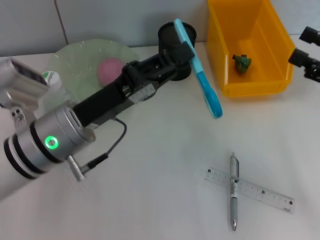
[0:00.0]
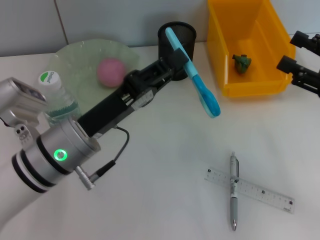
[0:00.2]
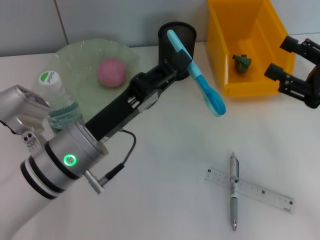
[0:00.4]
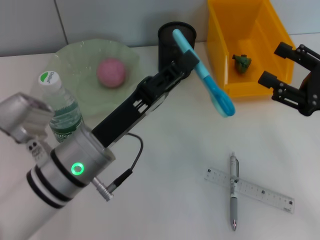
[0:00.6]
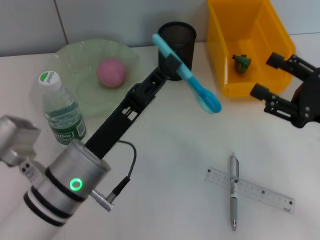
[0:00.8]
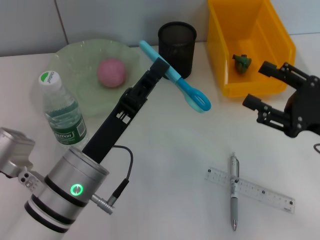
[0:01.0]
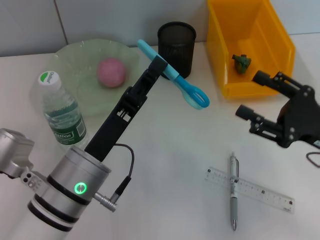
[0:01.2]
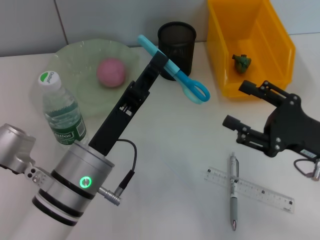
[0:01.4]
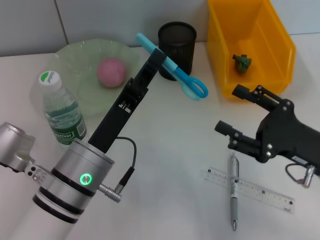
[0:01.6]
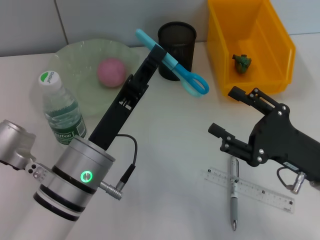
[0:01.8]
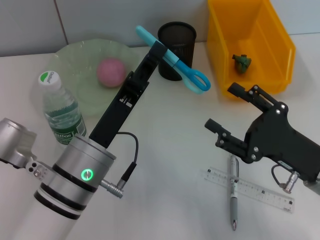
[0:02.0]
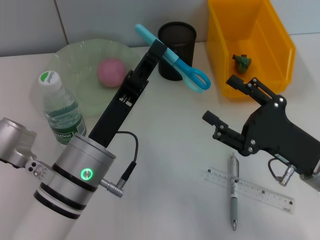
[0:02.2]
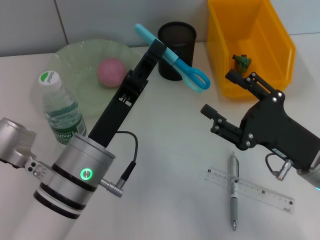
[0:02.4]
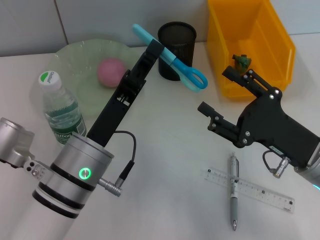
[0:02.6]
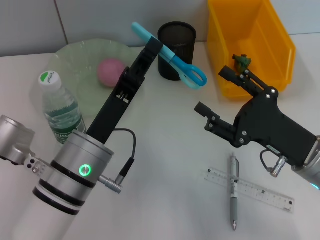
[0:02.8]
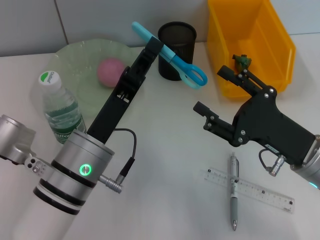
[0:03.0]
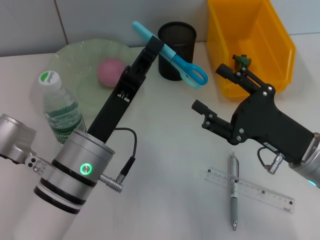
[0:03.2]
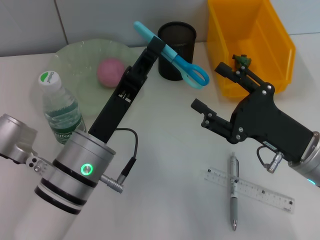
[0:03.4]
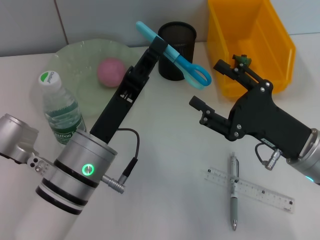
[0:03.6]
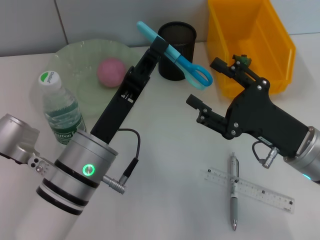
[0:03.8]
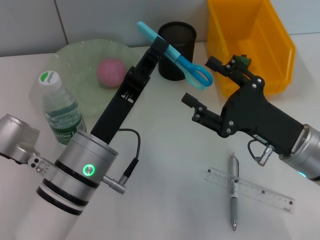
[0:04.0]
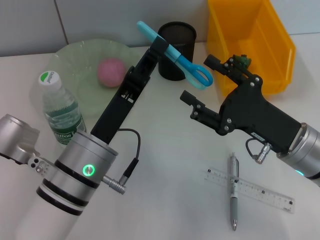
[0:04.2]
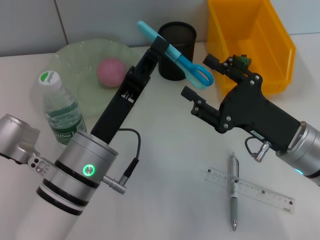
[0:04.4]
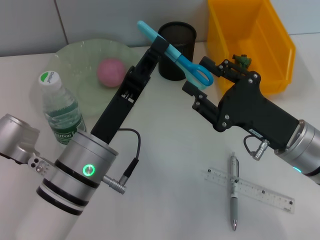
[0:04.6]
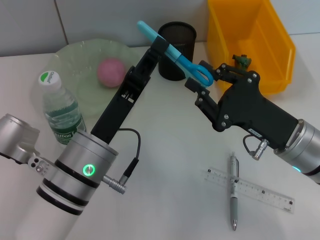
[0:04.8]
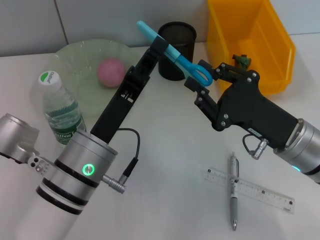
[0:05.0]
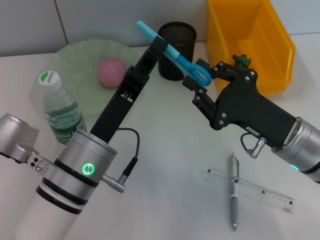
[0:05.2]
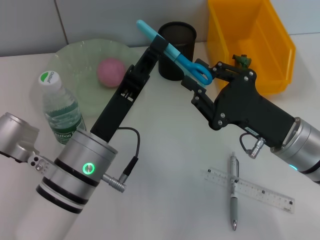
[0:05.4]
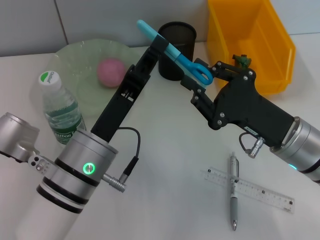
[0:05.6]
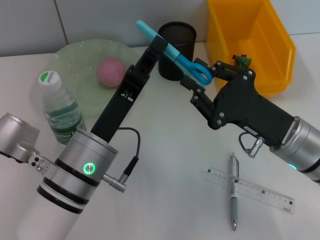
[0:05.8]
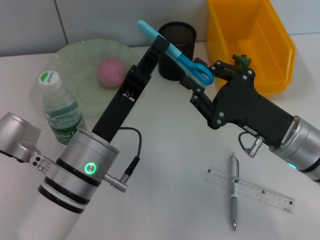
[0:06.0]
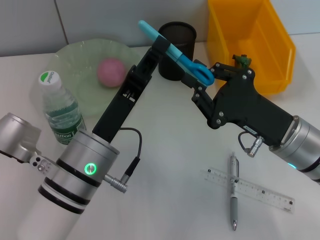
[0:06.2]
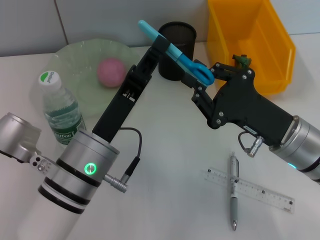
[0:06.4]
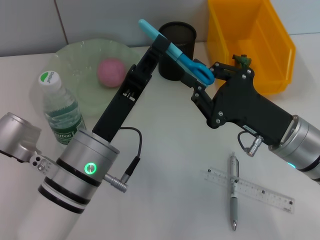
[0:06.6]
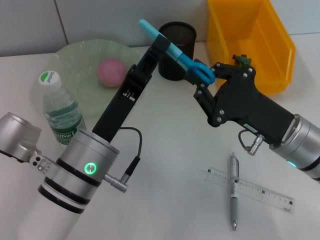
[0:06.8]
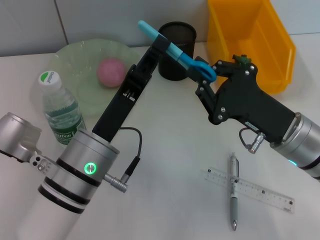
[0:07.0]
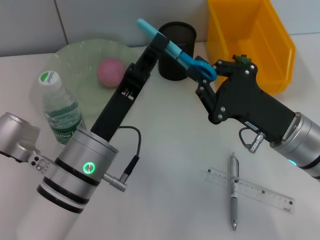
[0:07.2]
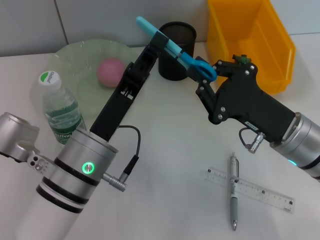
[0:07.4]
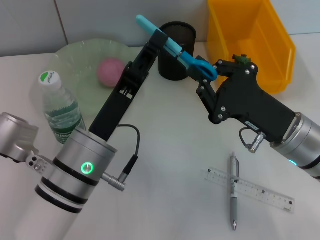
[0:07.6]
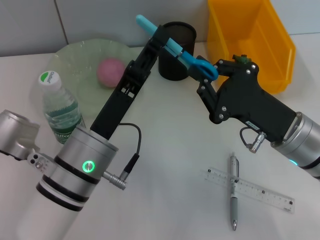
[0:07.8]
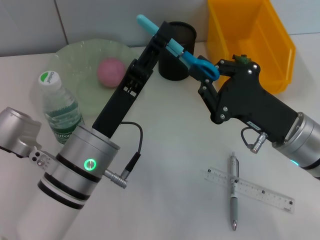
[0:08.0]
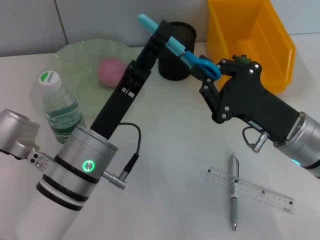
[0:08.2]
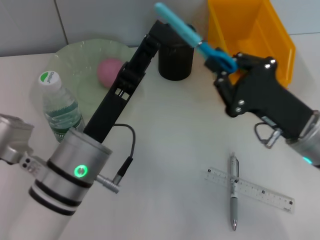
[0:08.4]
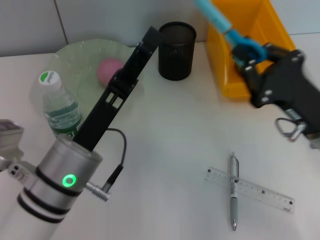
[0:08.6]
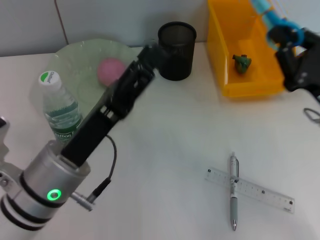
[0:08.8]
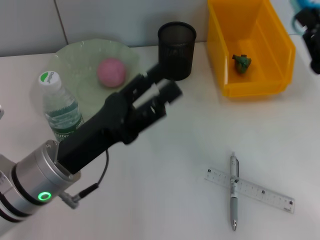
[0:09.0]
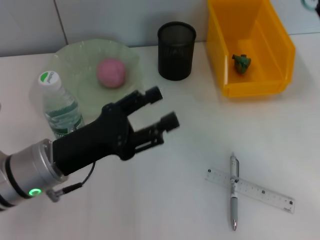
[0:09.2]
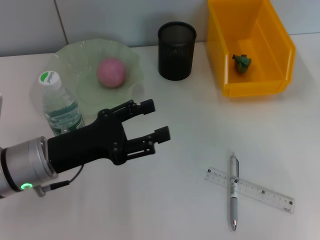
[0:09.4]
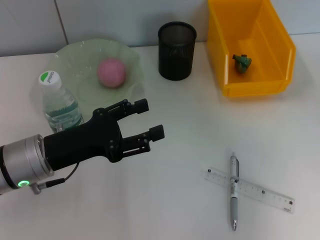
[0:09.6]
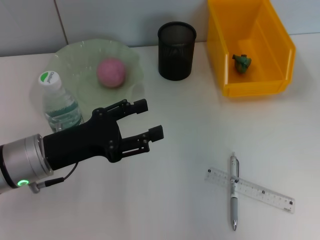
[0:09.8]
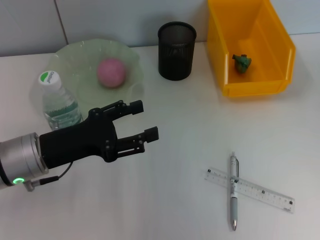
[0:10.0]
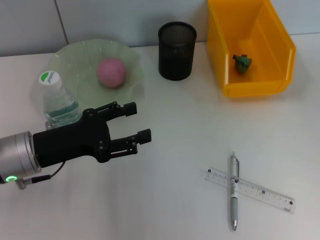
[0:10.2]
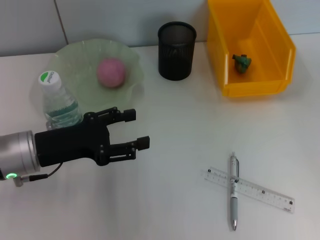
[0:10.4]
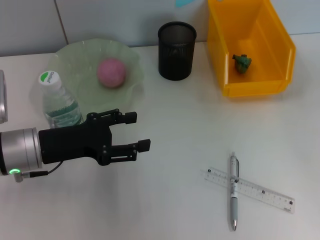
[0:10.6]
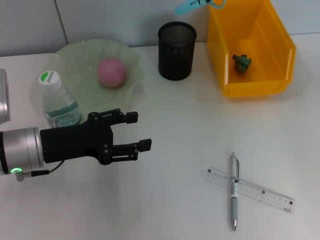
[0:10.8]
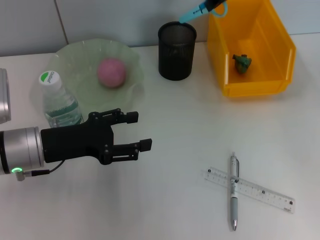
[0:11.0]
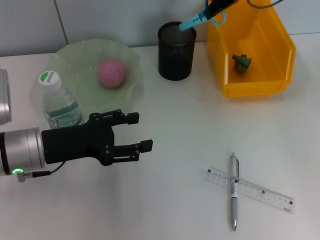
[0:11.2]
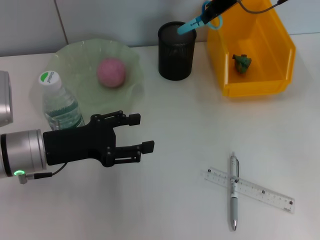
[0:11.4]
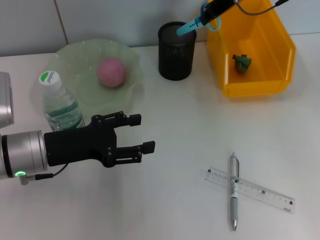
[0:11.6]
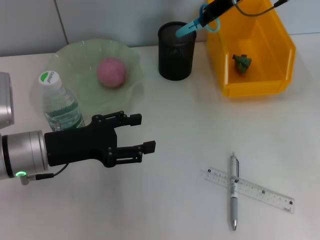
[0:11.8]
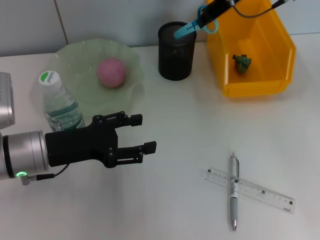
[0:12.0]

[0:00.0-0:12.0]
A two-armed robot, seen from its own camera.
Step, 0:00.0 to 0:08.2: Pass the blue scissors from the left hand to the right hand.
0:00.0 to 0:01.6: The right gripper moves to the left and downward, roughly 10 cm; the left gripper heads backward, covering about 5 cm.
0:01.6 to 0:04.4: The grippers stay close to where they were, moving slightly.
0:04.4 to 0:06.0: The right gripper closes its fingers.
0:06.0 to 0:07.6: Neither gripper changes place.
0:07.6 to 0:09.0: The left gripper heads to the left, covering some 5 cm, and opens up, while the right gripper heads to the right, covering some 10 cm.
0:09.0 to 0:10.4: The left gripper is displaced to the left and forward by approximately 10 cm, while the right gripper travels forward, upward and to the left by approximately 30 cm.
0:10.4 to 0:12.0: The right gripper is displaced downward by roughly 5 cm.

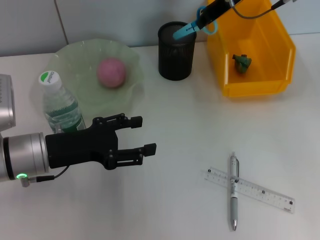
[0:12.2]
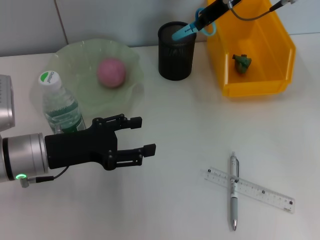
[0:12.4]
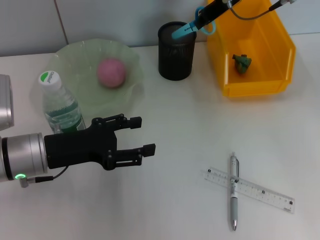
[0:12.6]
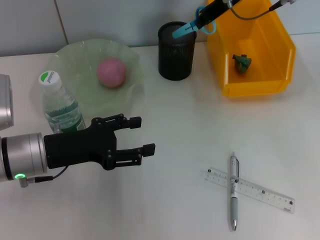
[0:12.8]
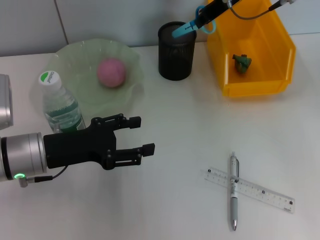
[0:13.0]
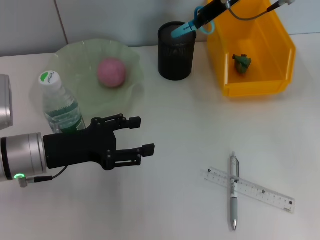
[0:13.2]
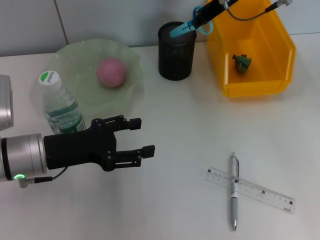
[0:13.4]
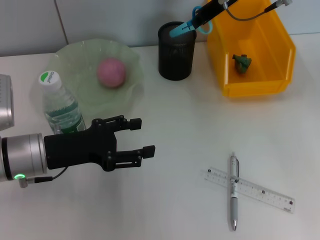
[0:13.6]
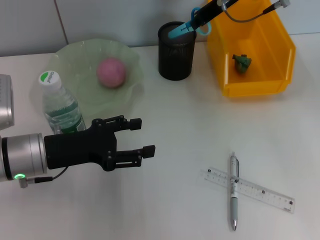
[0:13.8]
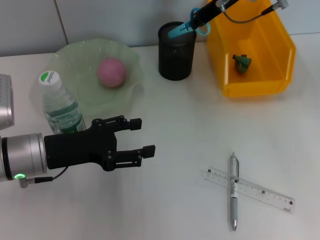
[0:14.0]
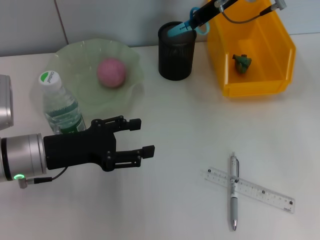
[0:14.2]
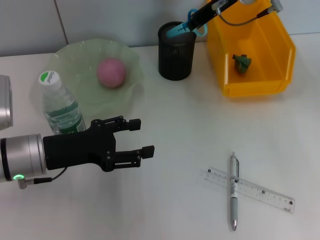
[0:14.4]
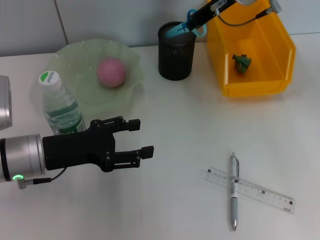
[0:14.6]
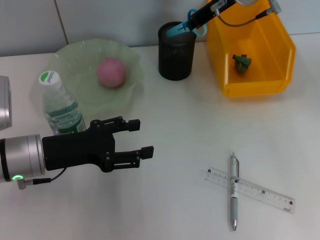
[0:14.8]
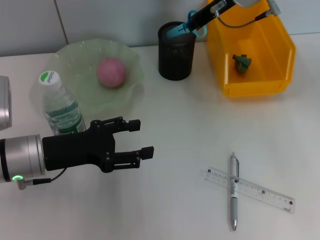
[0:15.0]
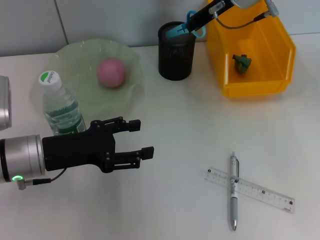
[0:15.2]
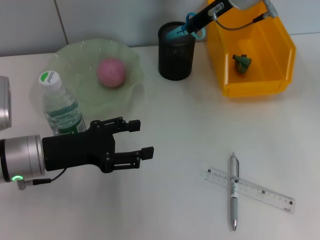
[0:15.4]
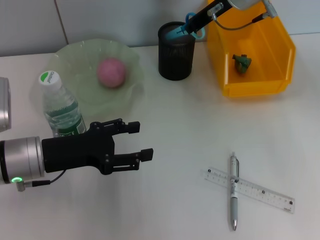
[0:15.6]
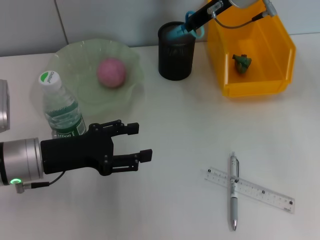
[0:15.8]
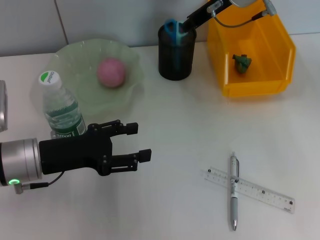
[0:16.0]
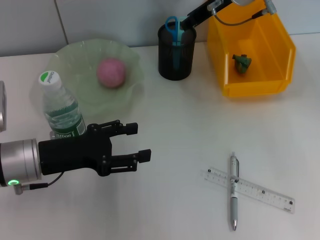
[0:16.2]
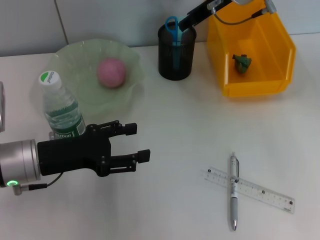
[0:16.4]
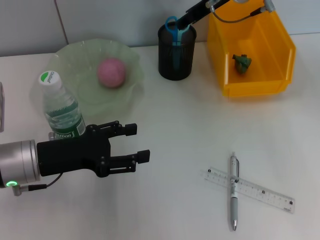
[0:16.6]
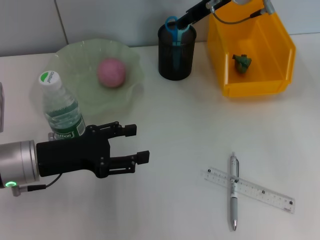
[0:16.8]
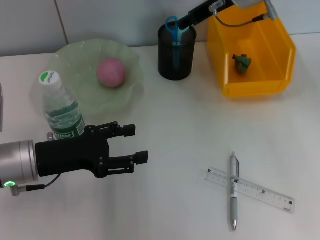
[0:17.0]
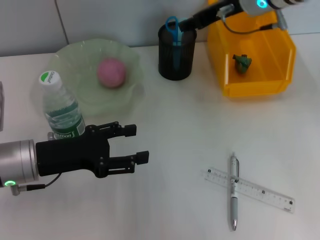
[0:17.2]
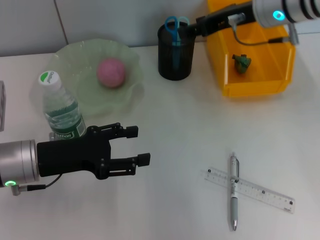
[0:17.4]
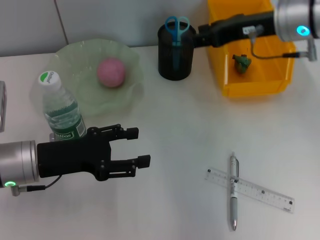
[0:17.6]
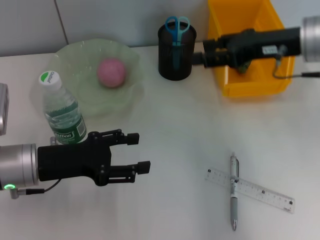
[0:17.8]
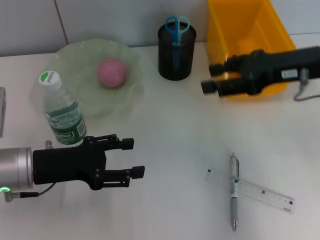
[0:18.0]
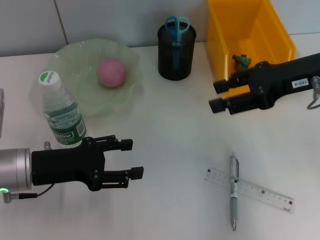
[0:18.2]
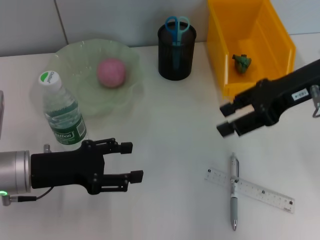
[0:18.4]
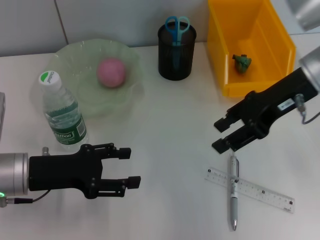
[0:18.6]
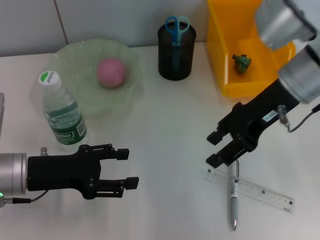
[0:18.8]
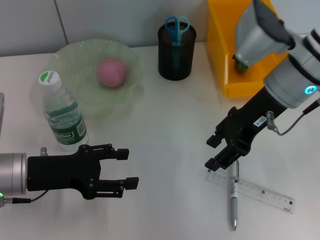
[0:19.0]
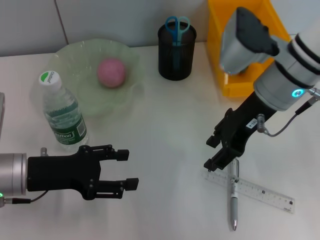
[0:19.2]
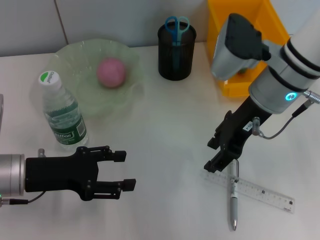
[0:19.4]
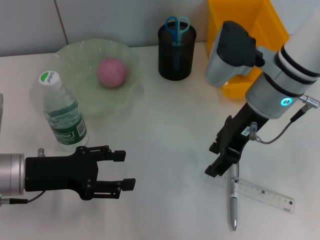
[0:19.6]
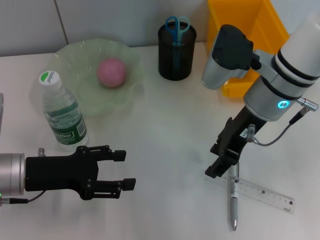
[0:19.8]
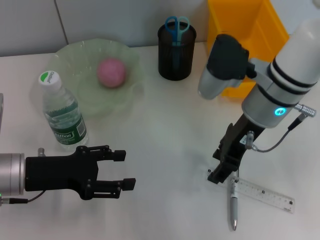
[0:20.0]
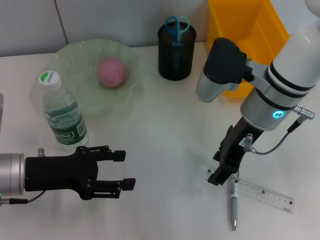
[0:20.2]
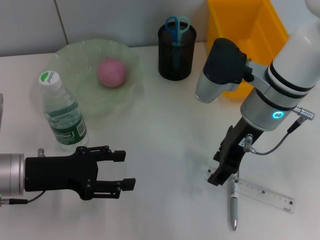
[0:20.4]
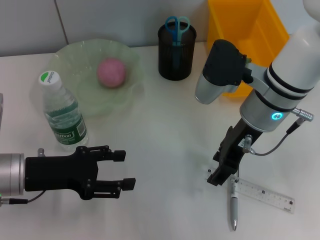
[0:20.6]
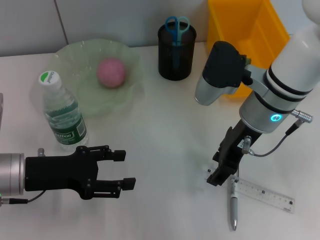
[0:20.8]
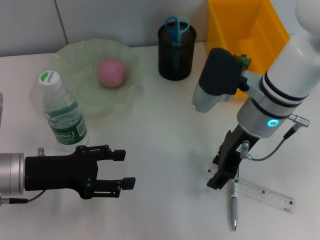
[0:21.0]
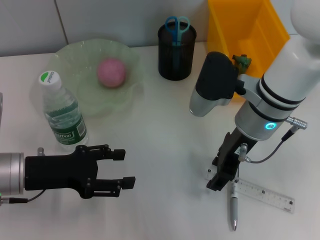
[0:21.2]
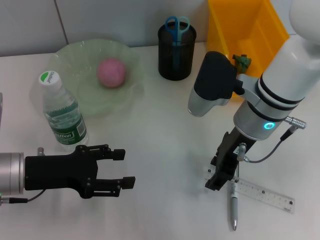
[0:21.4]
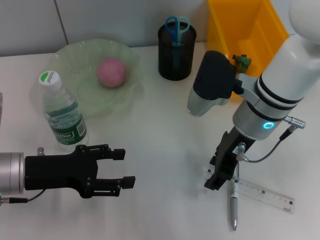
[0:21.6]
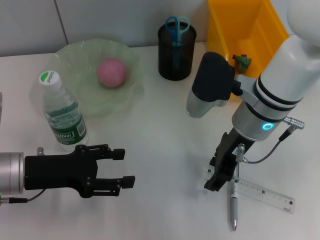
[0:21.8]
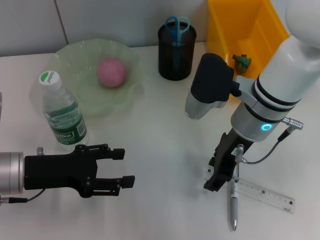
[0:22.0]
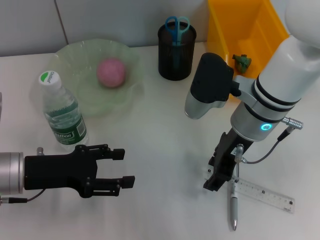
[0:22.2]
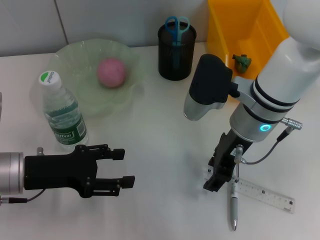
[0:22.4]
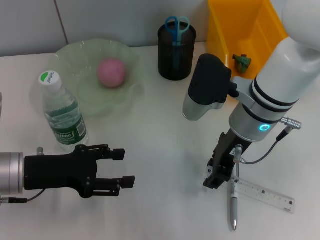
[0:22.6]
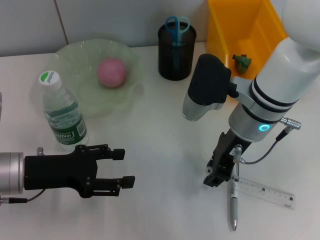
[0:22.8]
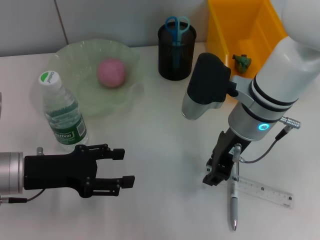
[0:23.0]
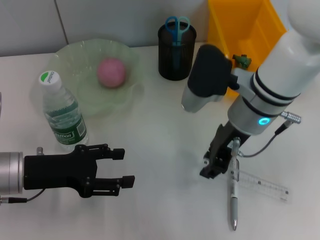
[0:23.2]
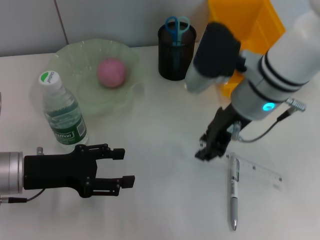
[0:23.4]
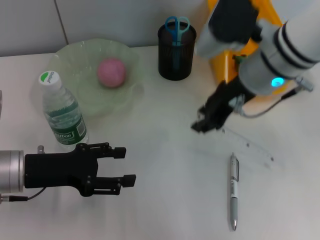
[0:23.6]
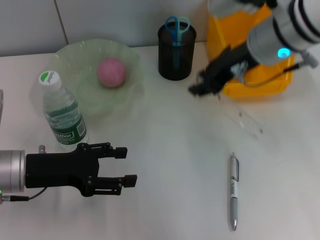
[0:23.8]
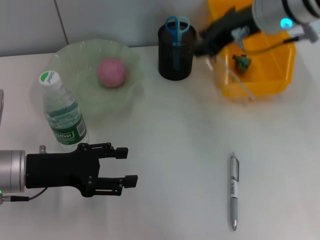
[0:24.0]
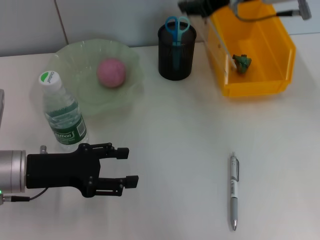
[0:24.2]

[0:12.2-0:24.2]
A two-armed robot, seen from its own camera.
Step, 0:12.2 to 0:16.4: Place the blue scissors into the pen holder with the right hand.
Step, 0:16.6 to 0:22.6: Grab the ruler with the right hand.
0:12.2 to 0:13.8: The two grippers keep their place.
0:13.8 to 0:15.2: There are only small adjustments of the grippers.
0:15.2 to 0:16.6: The right gripper opens.
0:16.6 to 0:18.2: The right gripper is displaced backward and to the right by some 20 cm.
0:18.2 to 0:19.8: The right gripper shifts some 10 cm to the left.
0:19.8 to 0:21.2: The grippers stay close to where they were, moving slightly.
0:21.2 to 0:22.6: The two grippers keep their place.
0:22.6 to 0:24.2: The right gripper goes roughly 15 cm upward and forward.
